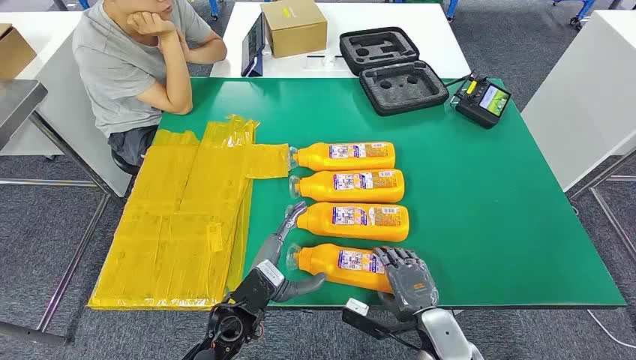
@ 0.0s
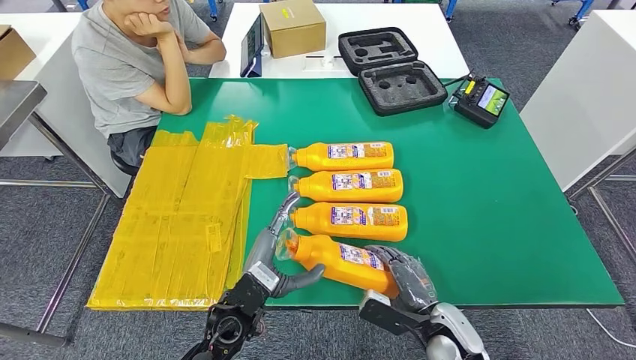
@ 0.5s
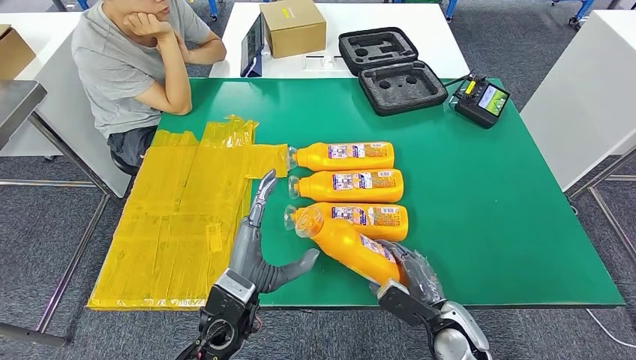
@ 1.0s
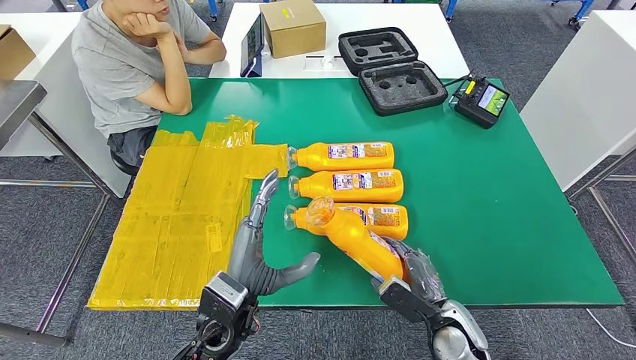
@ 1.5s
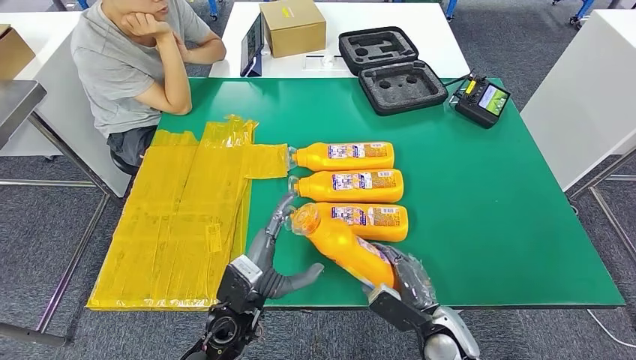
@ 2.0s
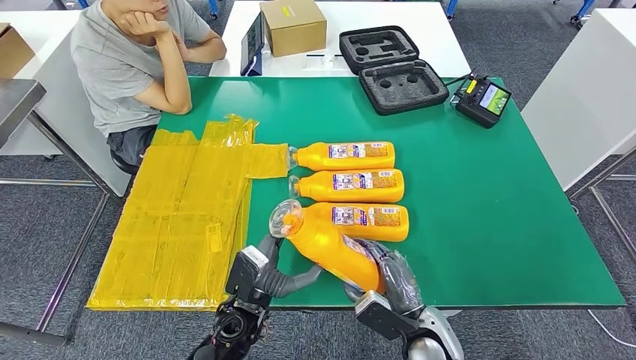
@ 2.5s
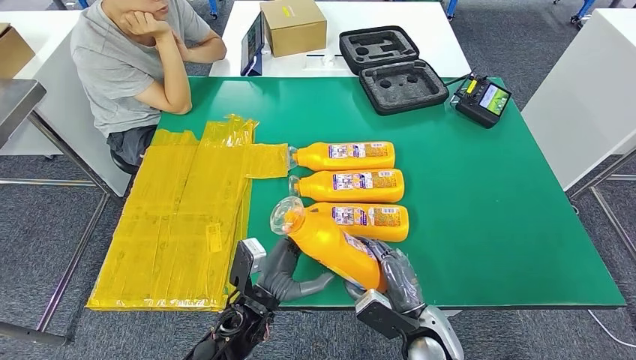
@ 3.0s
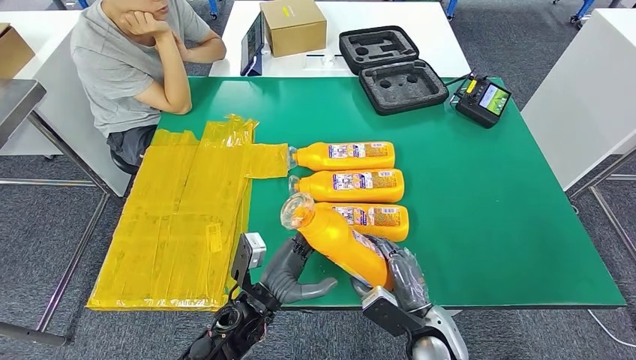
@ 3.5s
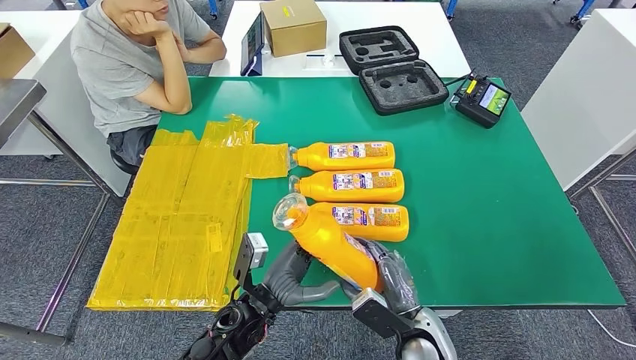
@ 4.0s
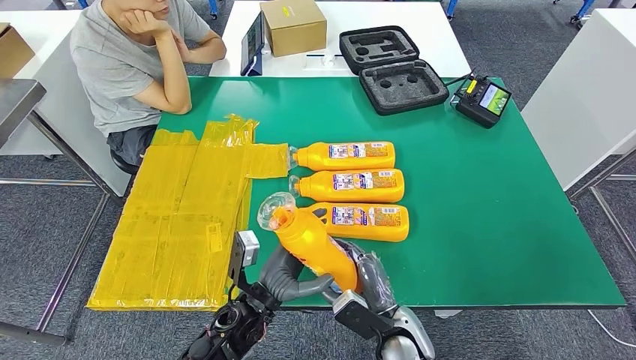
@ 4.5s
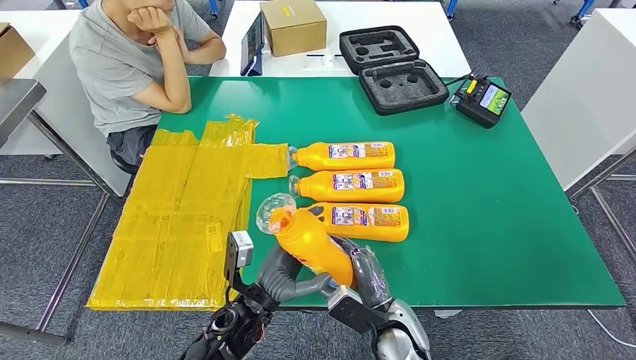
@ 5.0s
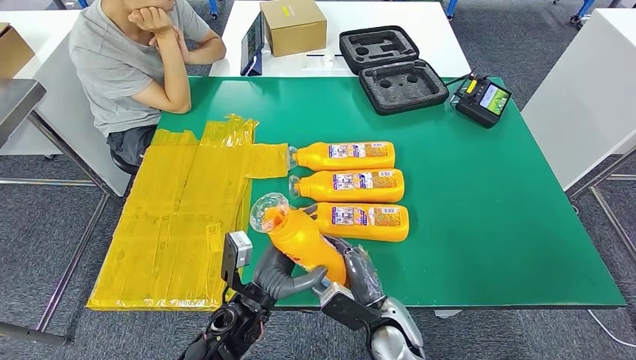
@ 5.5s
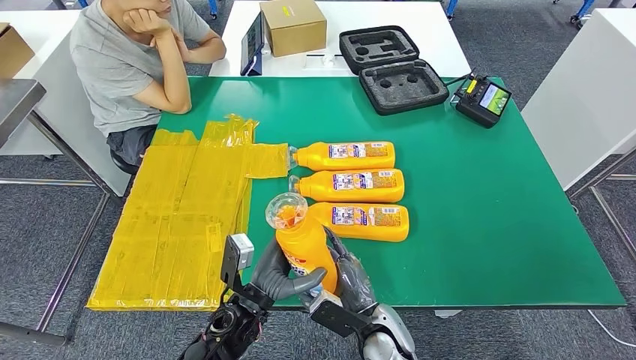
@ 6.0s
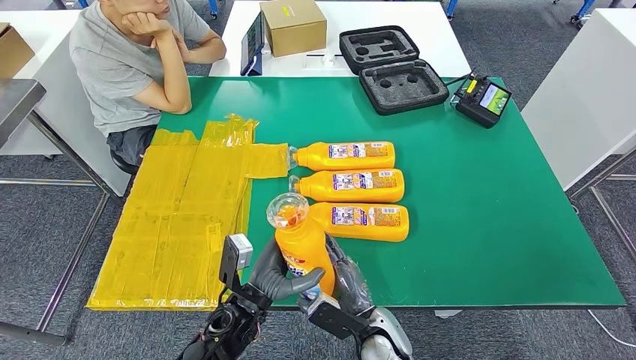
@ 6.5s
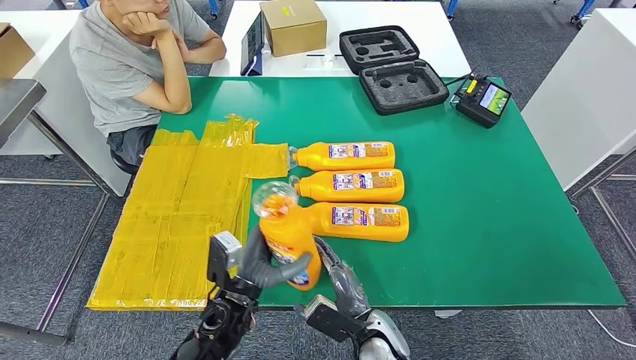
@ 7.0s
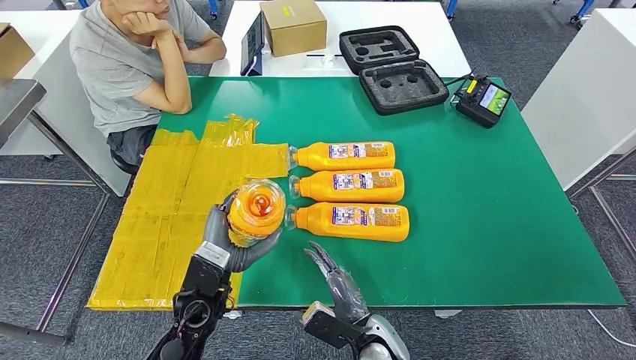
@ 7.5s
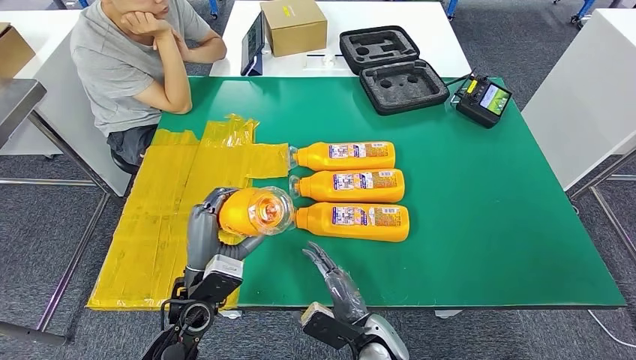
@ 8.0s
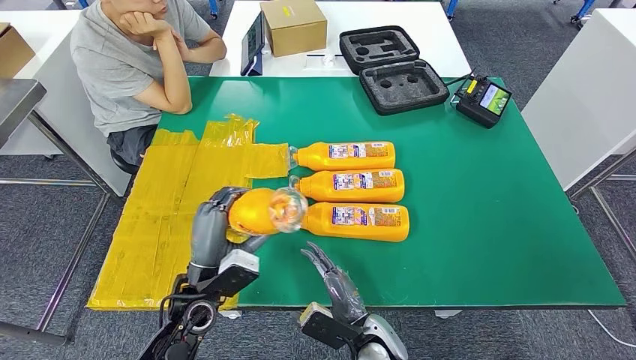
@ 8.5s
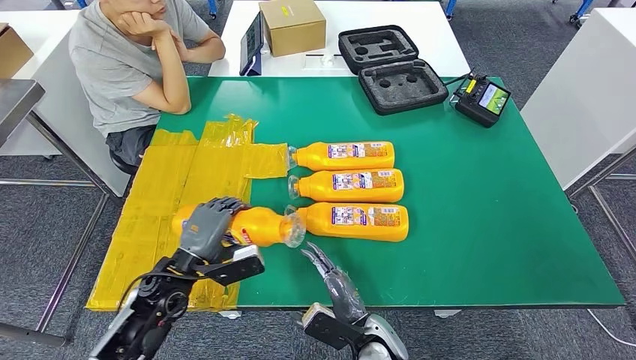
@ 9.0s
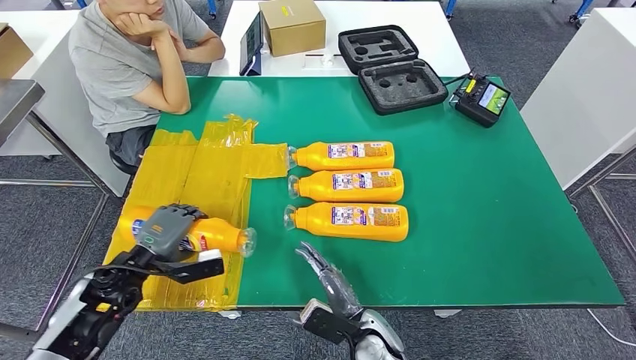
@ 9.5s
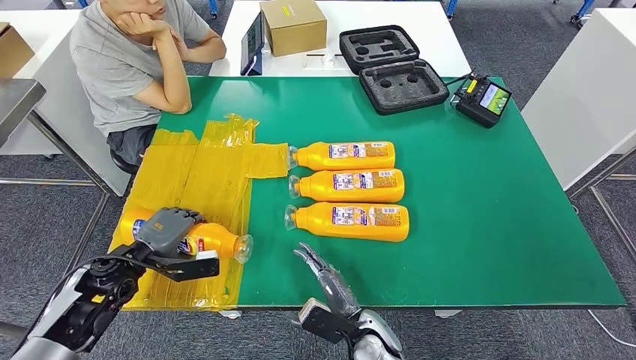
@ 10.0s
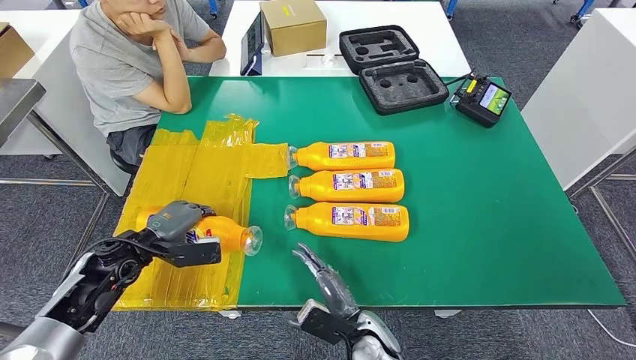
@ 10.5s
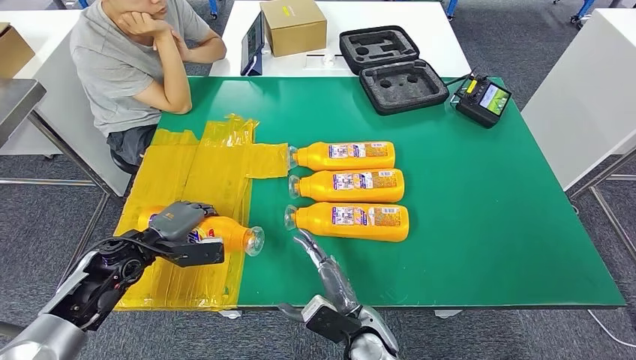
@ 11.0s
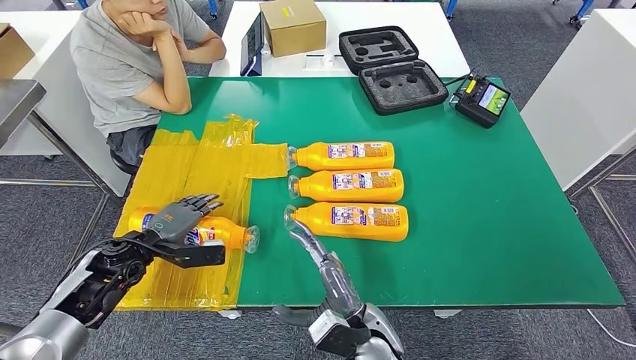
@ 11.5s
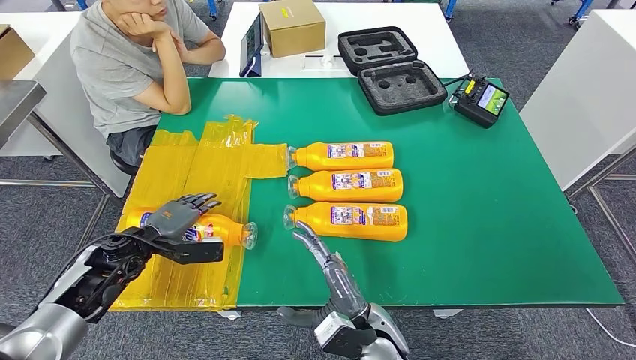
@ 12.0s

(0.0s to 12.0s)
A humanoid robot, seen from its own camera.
Step, 0.0s - 4.5s: Take the fast-moving consumer goods bottle from the table.
Step, 5.0s - 11.0s: Flip the fast-moving consumer goods bottle to the front side.
2.0s - 4.0s: The right hand heads to the left, covering approximately 5 cm.
4.0s - 6.0s: The right hand goes approximately 5 cm to the left.
6.0s - 8.0s: The left hand moves to the left, approximately 10 cm.
8.0s - 10.0s: The left hand heads to the left, covering some 15 cm.
10.0s - 12.0s: The right hand is displaced upward by some 5 cm.

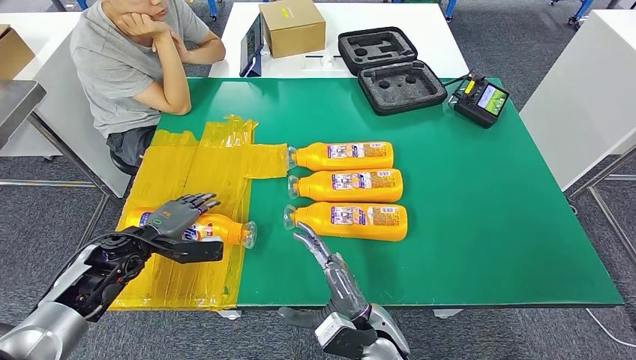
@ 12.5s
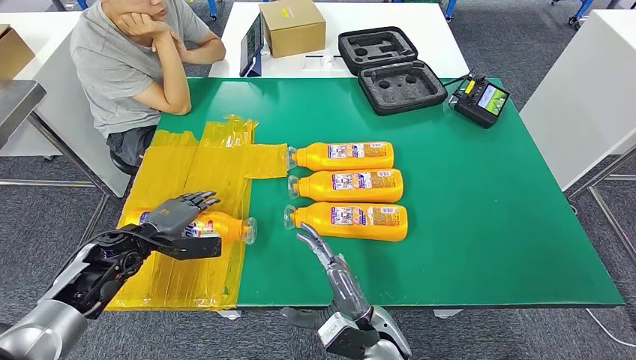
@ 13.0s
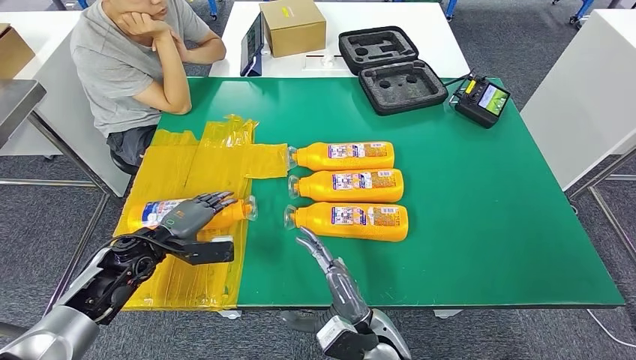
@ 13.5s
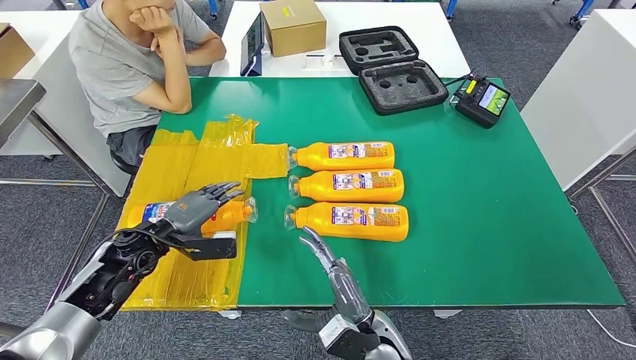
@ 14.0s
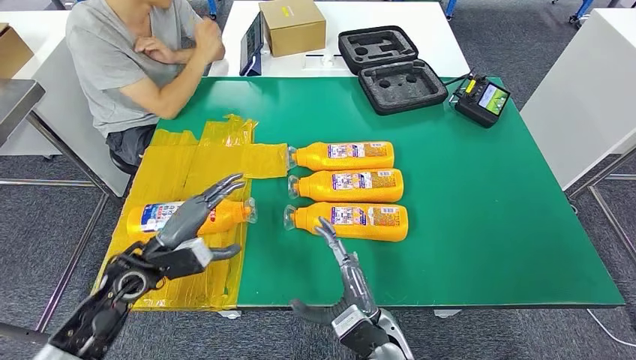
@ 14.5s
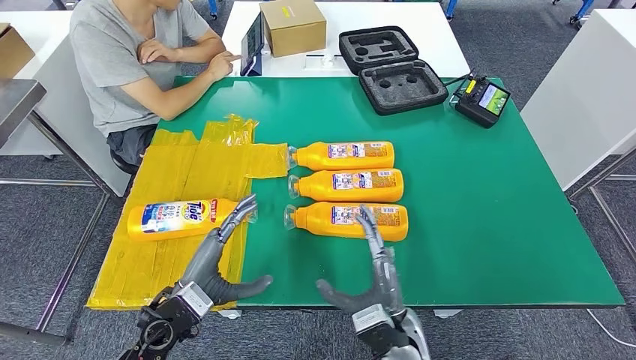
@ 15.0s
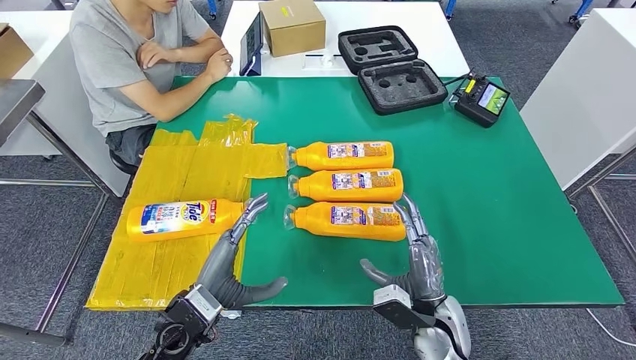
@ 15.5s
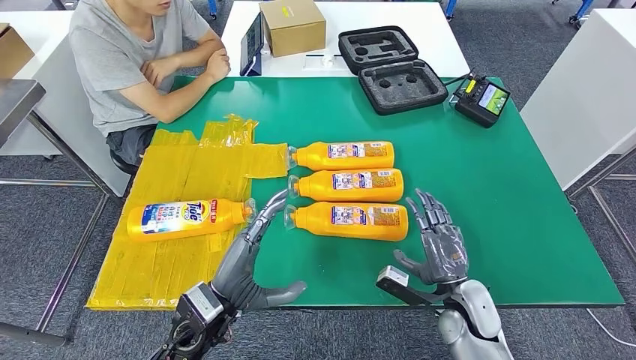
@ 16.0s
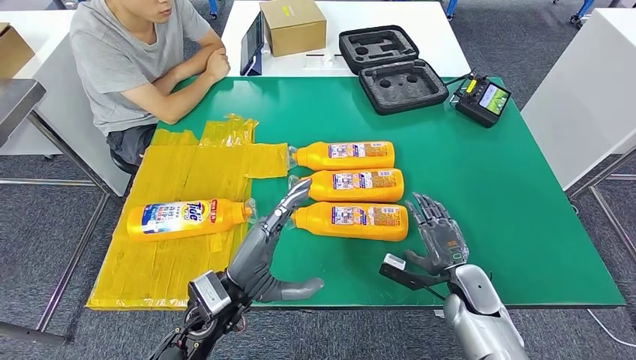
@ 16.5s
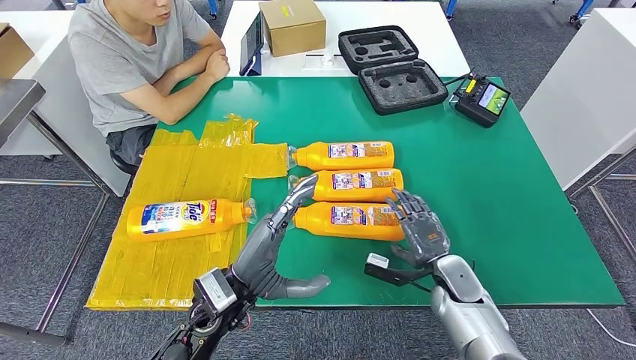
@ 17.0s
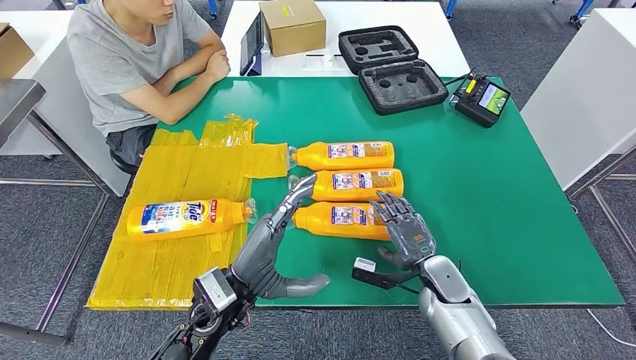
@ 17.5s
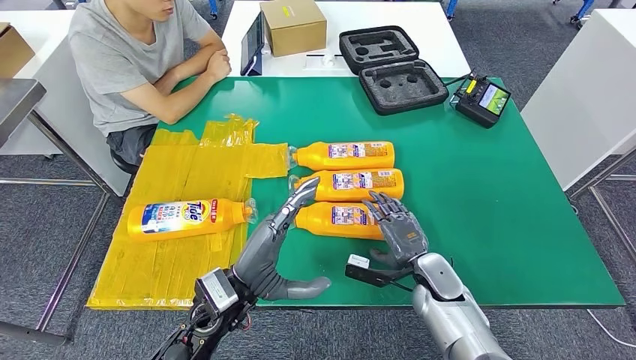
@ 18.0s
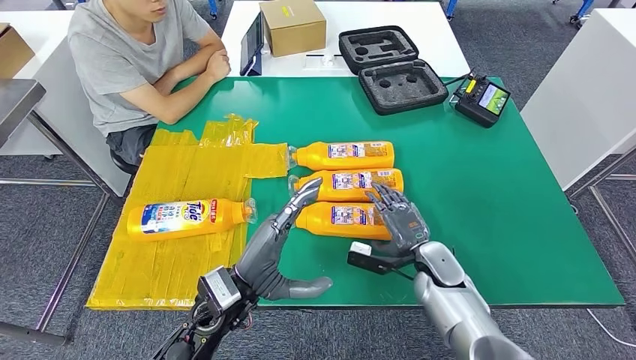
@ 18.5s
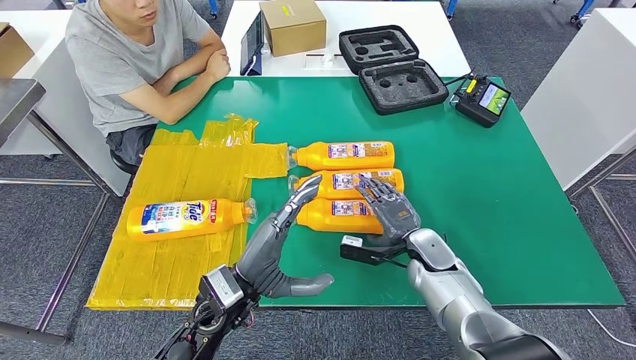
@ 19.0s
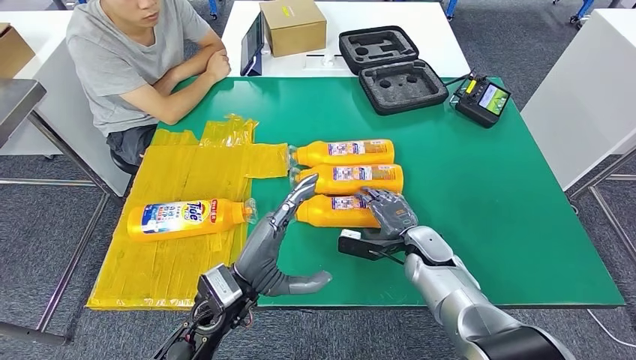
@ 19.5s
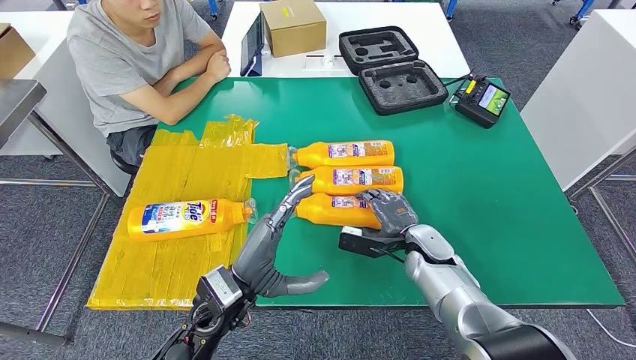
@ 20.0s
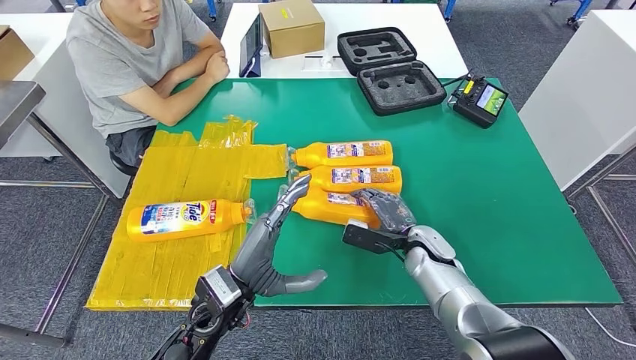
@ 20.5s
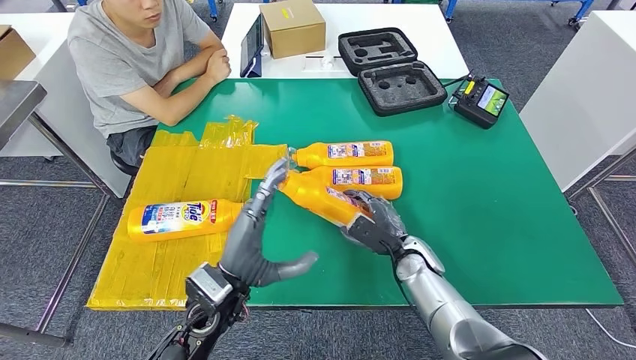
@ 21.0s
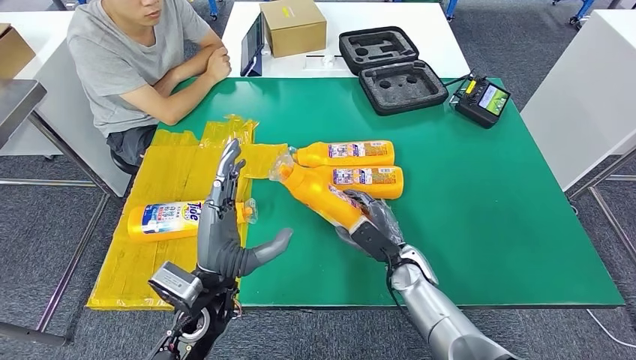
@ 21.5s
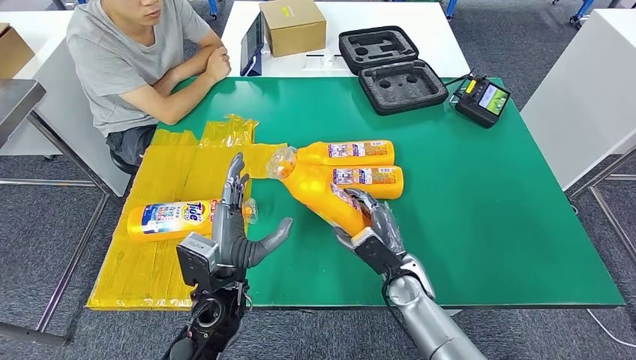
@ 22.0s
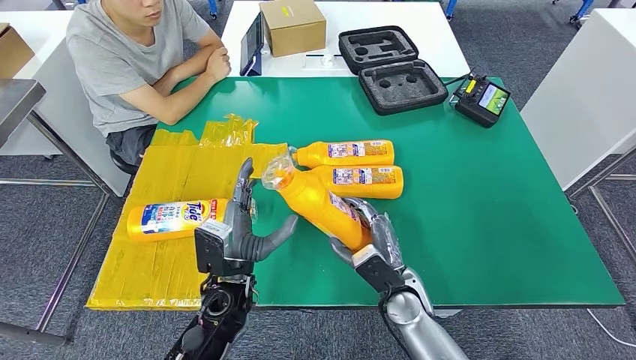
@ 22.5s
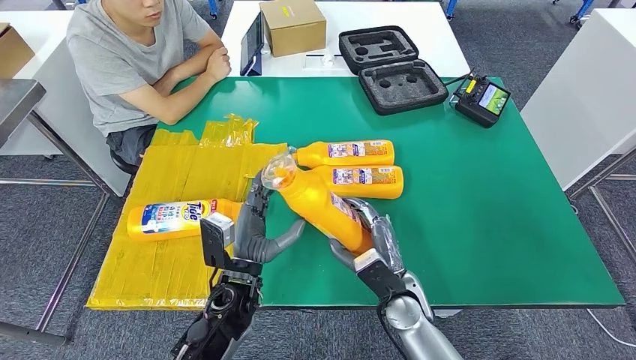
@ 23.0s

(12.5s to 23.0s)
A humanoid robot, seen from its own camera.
Step, 12.5s - 22.0s: Pick up the fast-moving consumer goods bottle from the table.
12.5s - 14.5s: The left hand is displaced backward by roughly 5 cm.
14.5s - 16.5s: The right hand travels to the right and forward by some 20 cm, while the left hand shifts roughly 15 cm to the right.
16.5s - 19.0s: The right hand is displaced to the left and forward by about 10 cm.
21.0s - 23.0s: The right hand travels backward by about 5 cm, while the left hand moves downward, about 5 cm.
